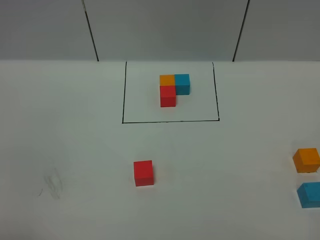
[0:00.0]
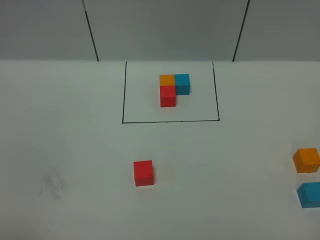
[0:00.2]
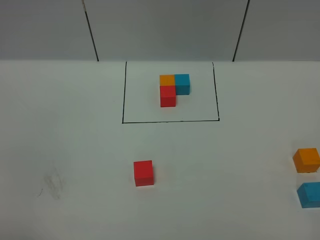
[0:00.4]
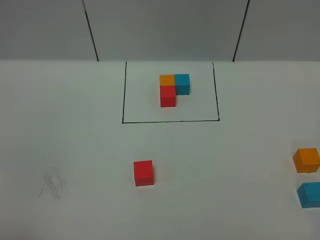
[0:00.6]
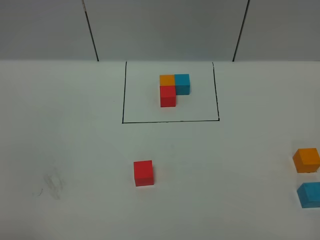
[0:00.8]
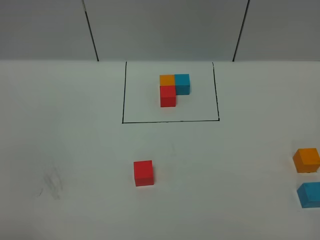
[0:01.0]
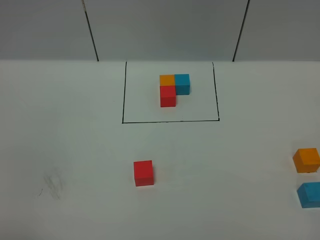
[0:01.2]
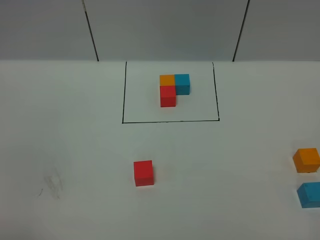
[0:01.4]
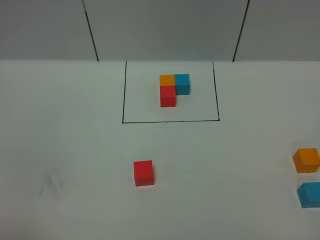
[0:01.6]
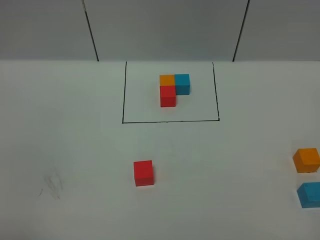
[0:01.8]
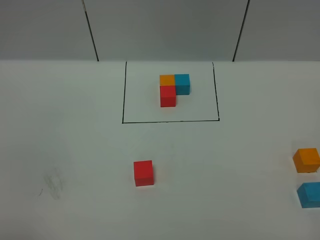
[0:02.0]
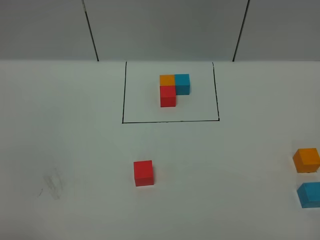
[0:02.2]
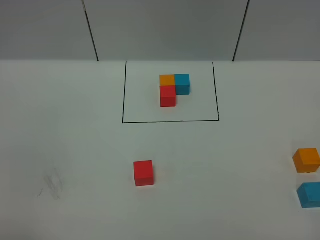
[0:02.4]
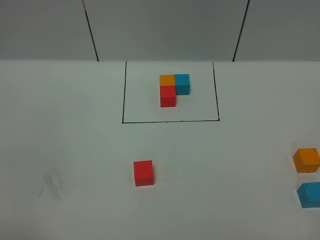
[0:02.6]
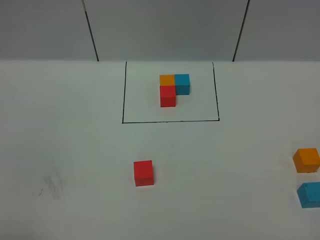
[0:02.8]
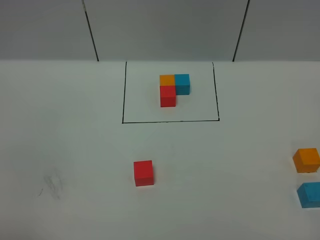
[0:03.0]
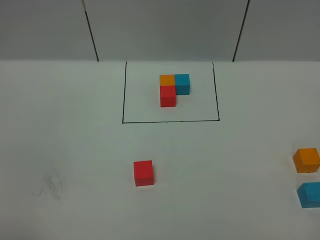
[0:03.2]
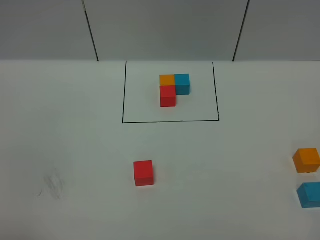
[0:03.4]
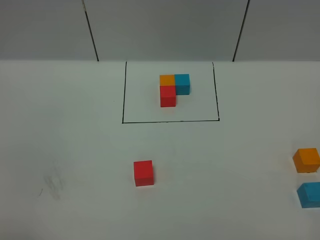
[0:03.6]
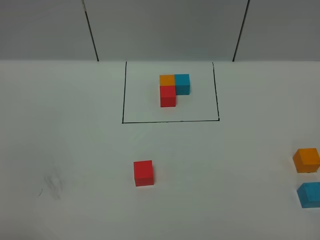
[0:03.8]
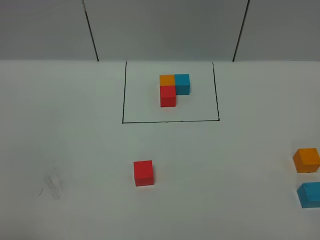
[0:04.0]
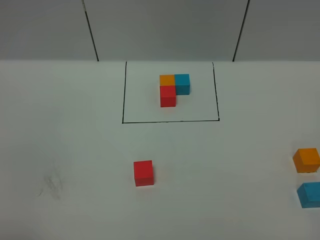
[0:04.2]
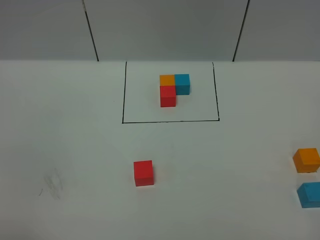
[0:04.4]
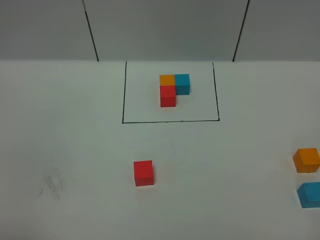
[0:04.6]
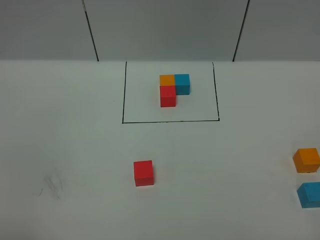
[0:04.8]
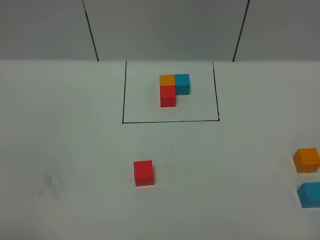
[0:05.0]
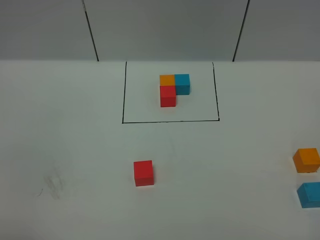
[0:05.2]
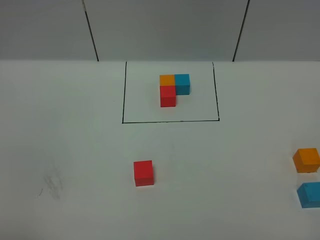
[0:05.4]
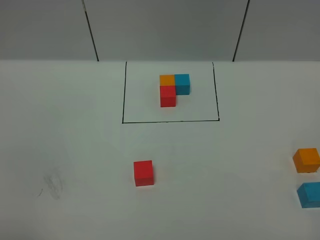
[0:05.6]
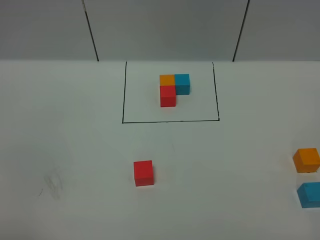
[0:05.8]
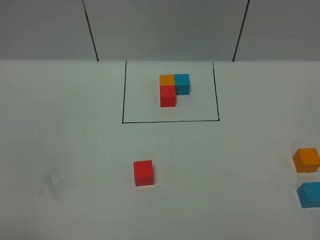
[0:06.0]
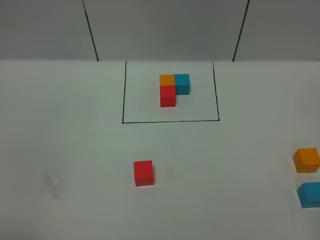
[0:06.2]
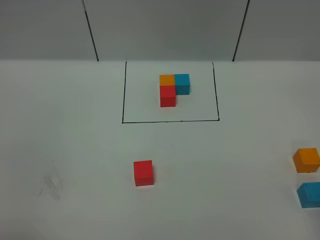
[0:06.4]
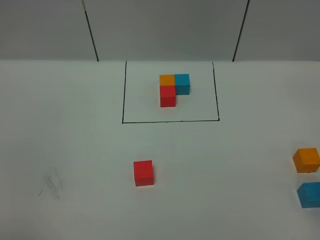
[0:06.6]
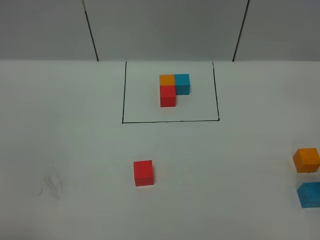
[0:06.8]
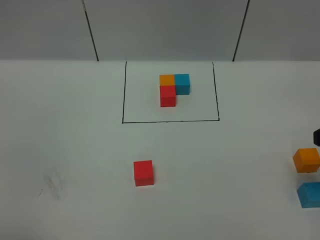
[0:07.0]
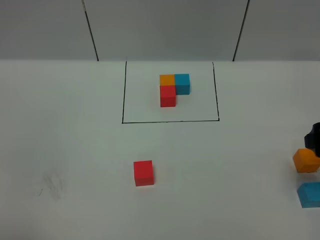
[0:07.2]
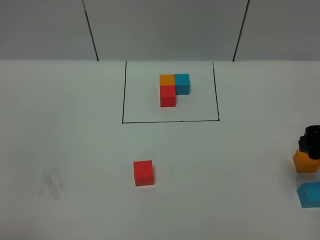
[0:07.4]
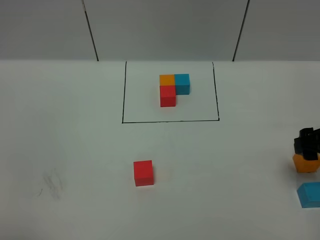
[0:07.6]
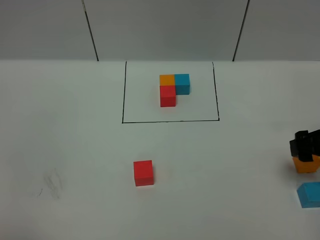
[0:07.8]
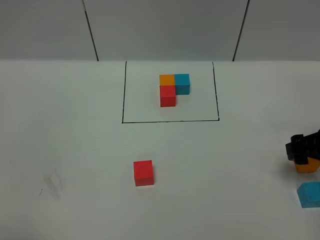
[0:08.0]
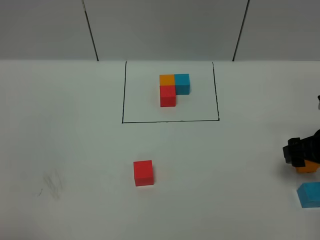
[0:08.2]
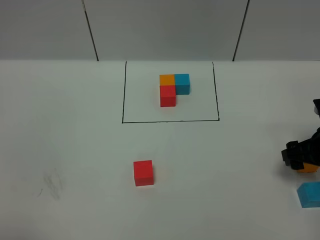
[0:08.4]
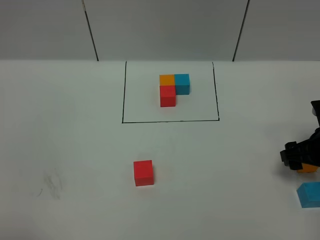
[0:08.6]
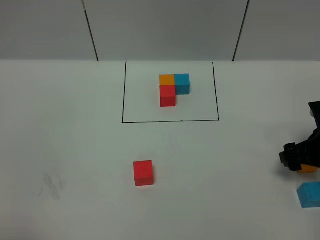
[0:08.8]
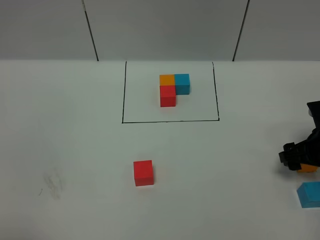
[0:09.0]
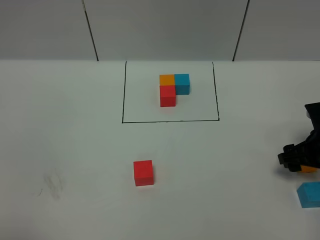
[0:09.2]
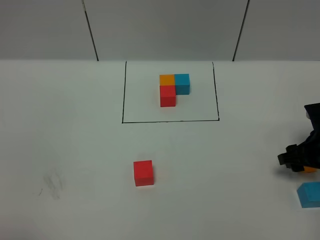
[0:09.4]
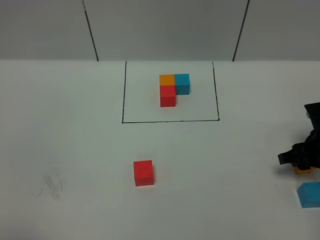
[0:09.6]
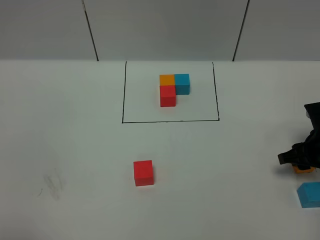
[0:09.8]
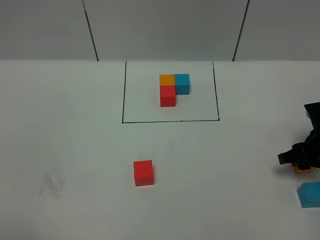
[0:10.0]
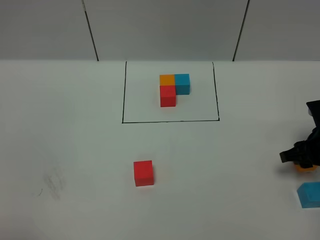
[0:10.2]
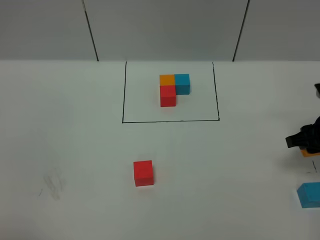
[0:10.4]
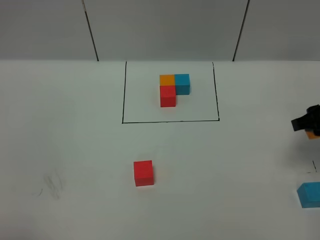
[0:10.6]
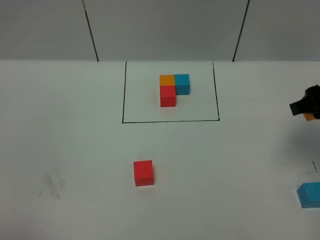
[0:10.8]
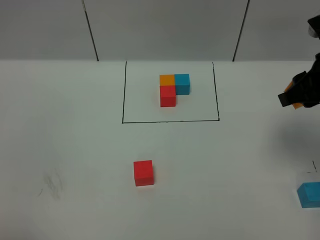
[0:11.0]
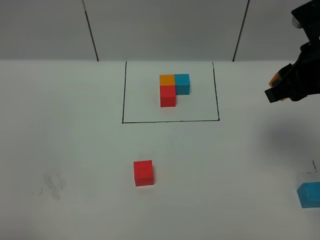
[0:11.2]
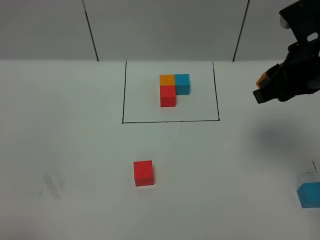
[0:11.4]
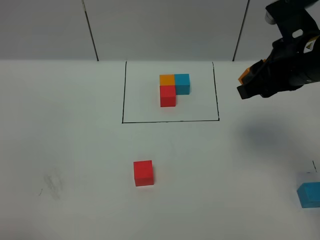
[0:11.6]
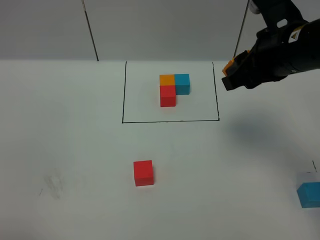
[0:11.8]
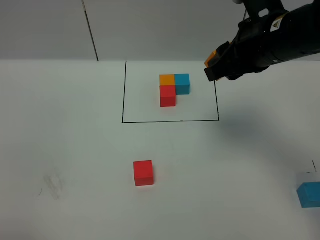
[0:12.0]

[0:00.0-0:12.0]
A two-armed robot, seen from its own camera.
Task of the whole recording: According to the building block template in front, assemble the scattered blocks together.
0:00.0 to 0:03.0: Neither gripper changes place.
0:06.0 to 0:07.6: The right gripper heads forward and downward, covering approximately 25 cm.
0:07.6 to 0:09.0: The right gripper shifts about 10 cm downward.
0:09.0 to 0:10.4: The right gripper shifts roughly 5 cm upward, and closes.
0:10.4 to 0:12.0: The right gripper is displaced upward and to the left by approximately 25 cm.

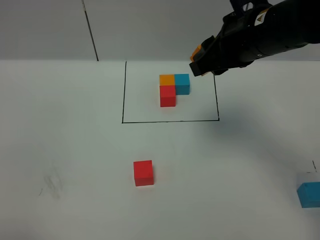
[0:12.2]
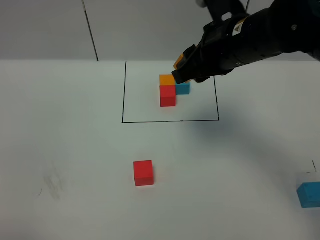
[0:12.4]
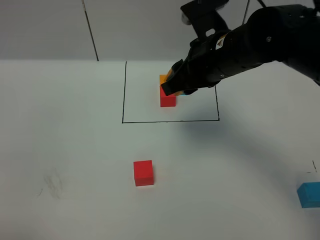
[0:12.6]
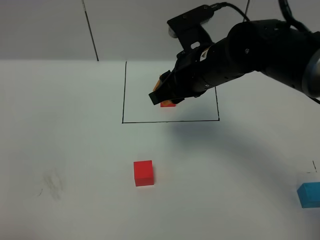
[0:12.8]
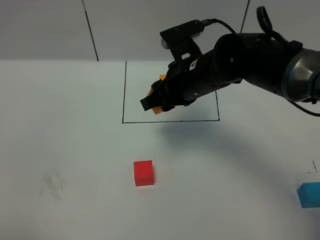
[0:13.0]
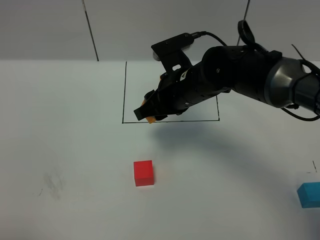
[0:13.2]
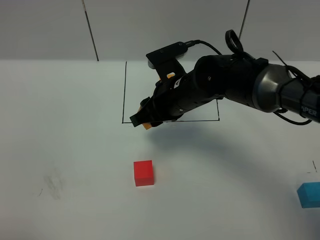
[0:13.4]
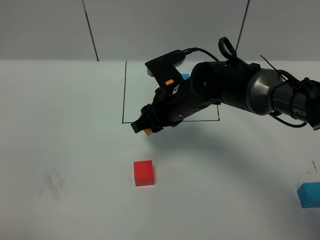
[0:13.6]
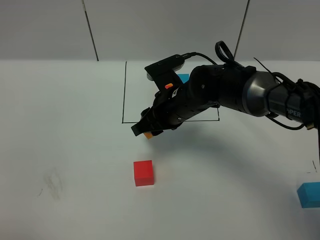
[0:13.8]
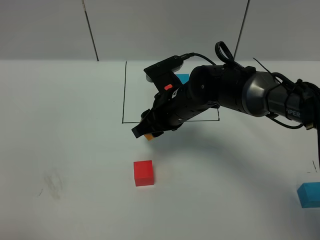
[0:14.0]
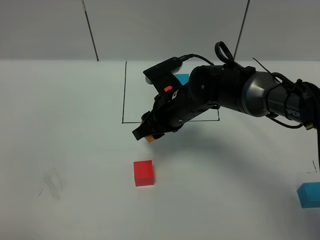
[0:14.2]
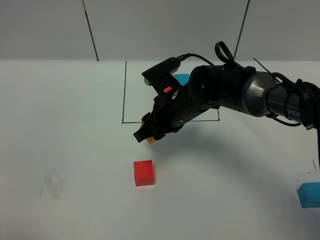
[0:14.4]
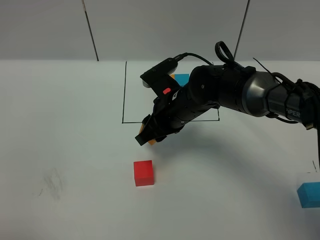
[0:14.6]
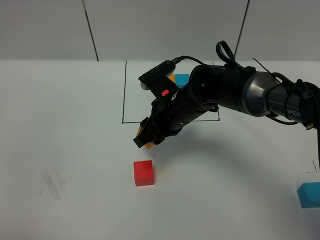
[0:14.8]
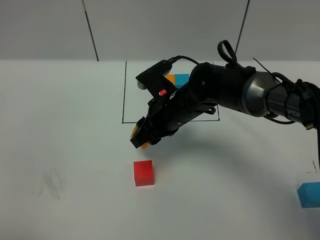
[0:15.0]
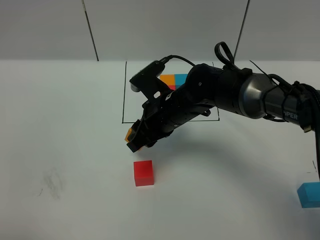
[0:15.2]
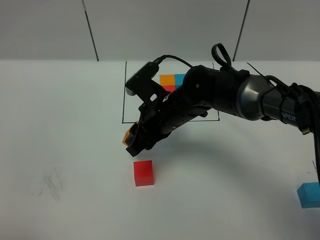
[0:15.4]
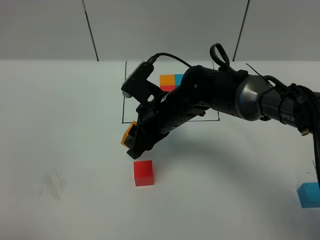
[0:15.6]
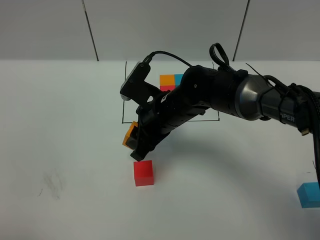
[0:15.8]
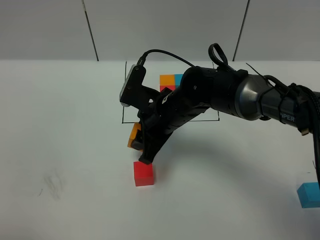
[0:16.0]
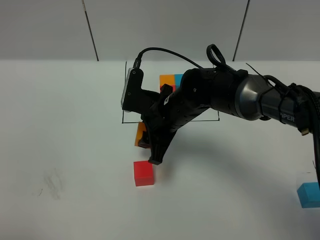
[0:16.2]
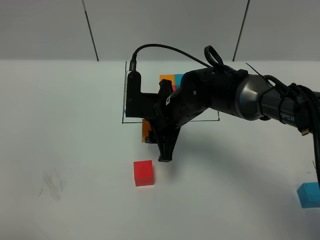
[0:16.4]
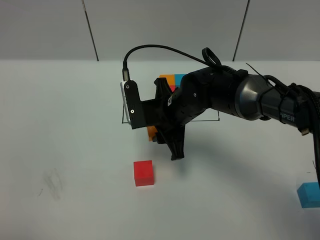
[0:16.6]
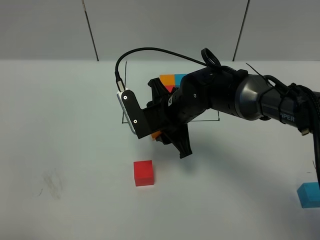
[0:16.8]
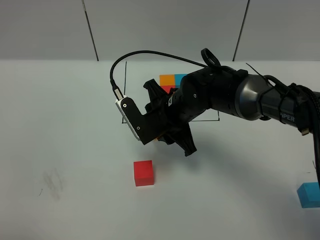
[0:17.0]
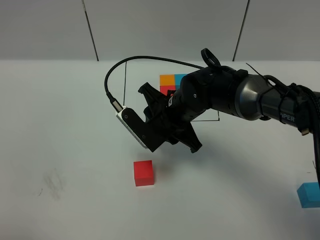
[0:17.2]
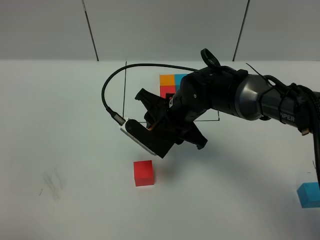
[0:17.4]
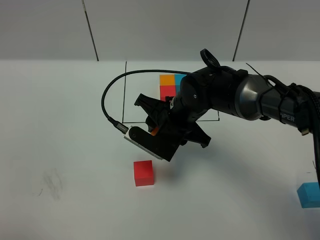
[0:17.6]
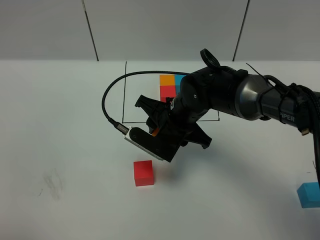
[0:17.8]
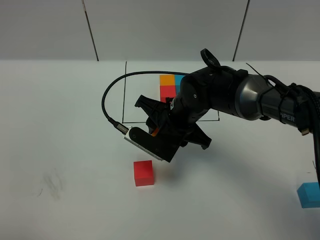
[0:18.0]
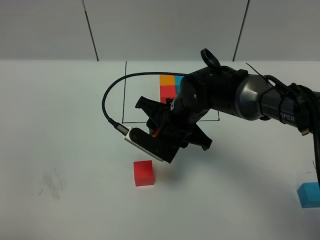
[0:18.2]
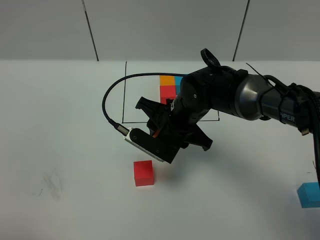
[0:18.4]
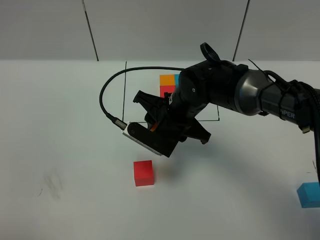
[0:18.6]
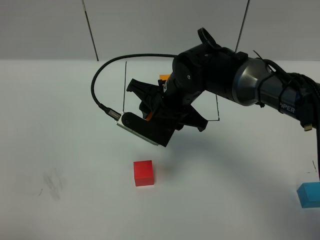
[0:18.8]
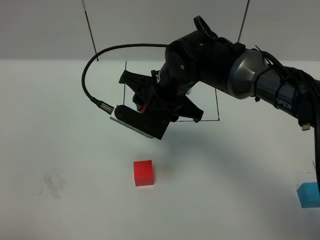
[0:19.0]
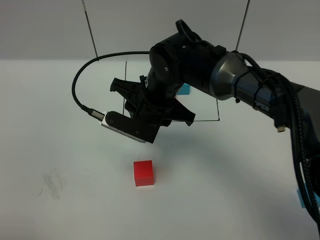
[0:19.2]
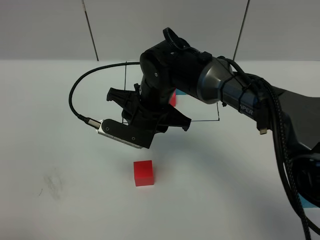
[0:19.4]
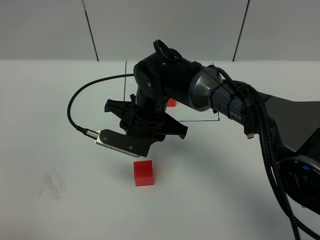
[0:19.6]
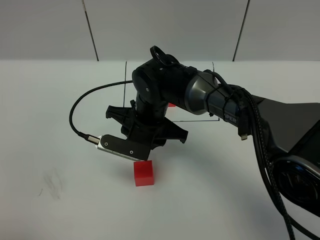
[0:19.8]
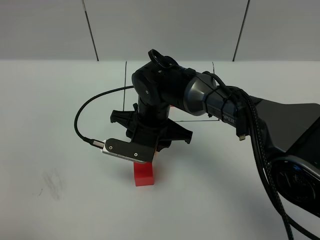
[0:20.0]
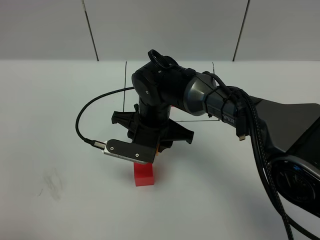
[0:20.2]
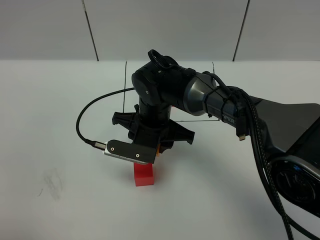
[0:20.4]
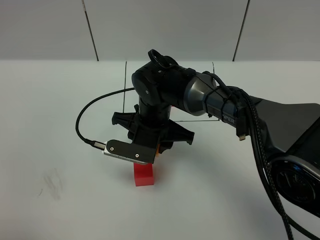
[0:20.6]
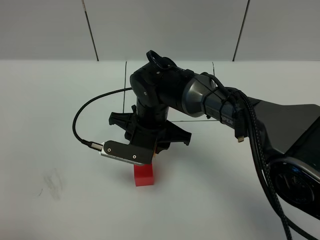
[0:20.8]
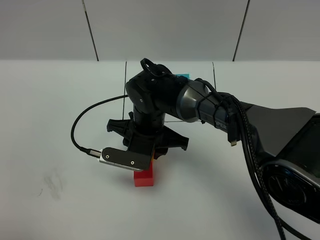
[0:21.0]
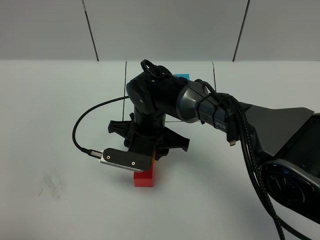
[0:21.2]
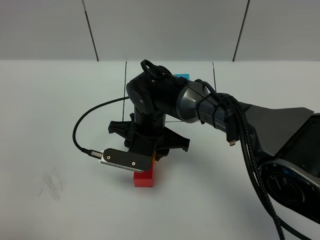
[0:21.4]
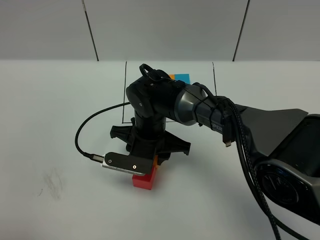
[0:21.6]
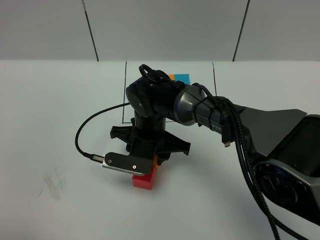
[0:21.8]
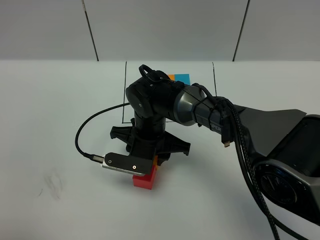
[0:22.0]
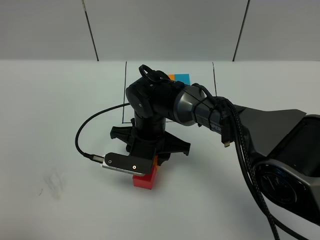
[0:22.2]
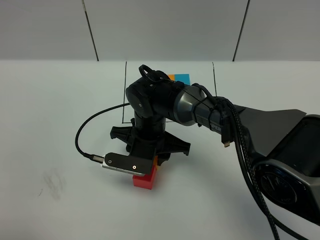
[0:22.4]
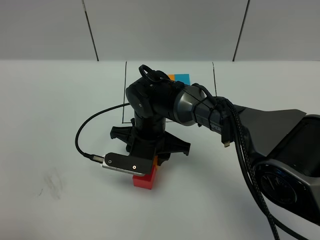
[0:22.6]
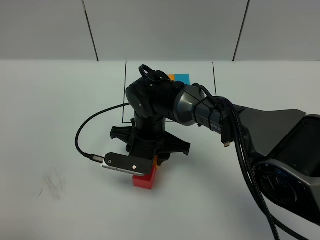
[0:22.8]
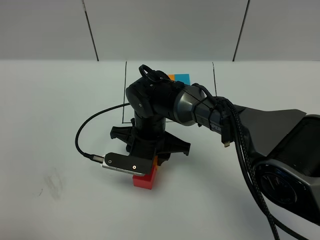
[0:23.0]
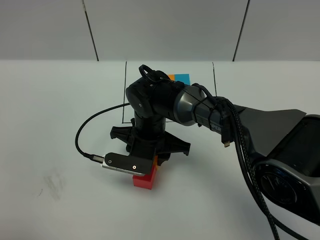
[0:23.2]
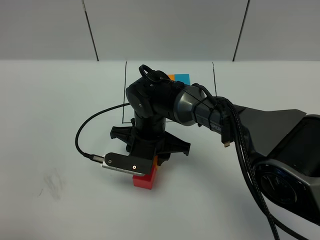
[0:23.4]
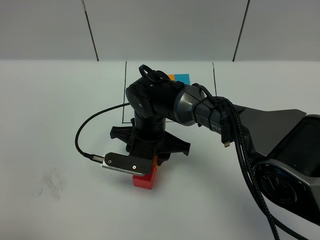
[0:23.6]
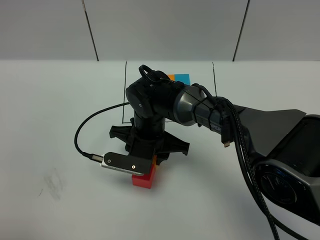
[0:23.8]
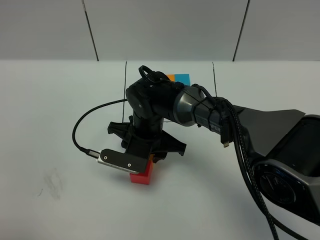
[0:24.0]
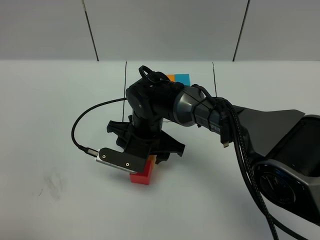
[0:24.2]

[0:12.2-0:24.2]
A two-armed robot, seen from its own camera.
Task of the whole recording: According to the building block template in front, assemble the scattered blocks together.
0:12.2 to 0:13.8: The right gripper moves downward and to the left, approximately 20 cm.
0:13.8 to 0:15.2: There are only small adjustments of the grippers.
0:18.2 to 0:19.8: The right gripper shifts about 5 cm to the left.
0:19.8 to 0:21.2: The grippers move only a little.
0:21.2 to 0:22.6: Both grippers stay put.
0:22.6 to 0:24.2: The grippers move only a little.
